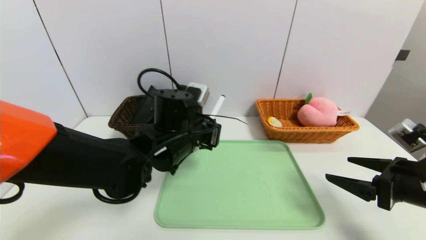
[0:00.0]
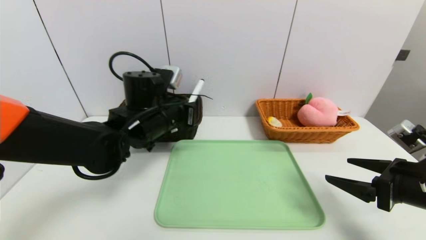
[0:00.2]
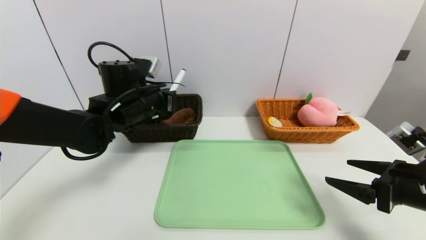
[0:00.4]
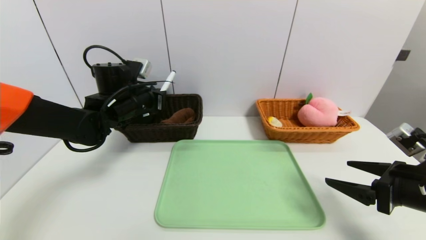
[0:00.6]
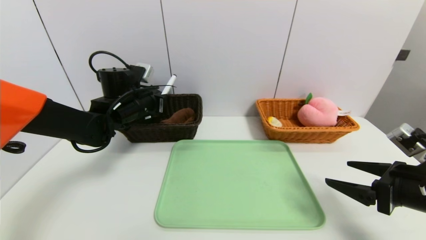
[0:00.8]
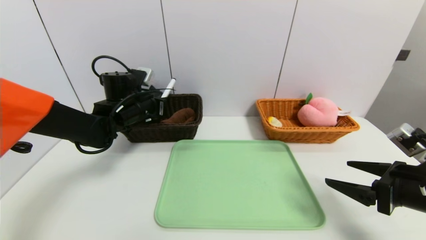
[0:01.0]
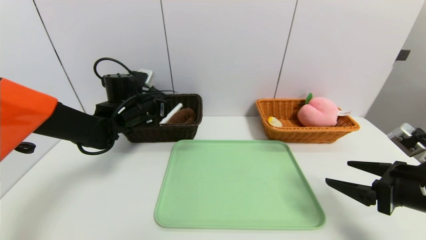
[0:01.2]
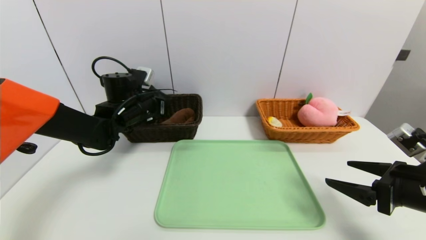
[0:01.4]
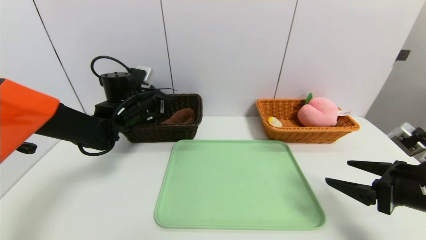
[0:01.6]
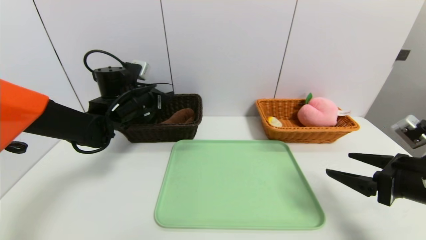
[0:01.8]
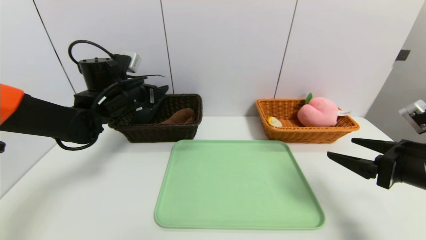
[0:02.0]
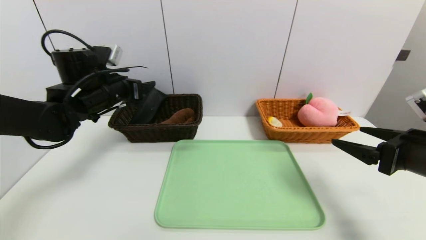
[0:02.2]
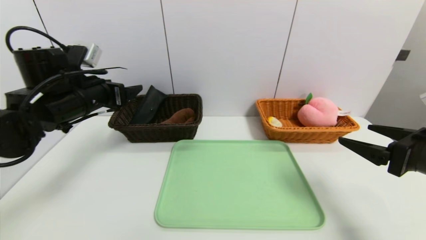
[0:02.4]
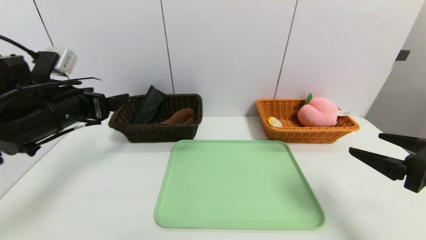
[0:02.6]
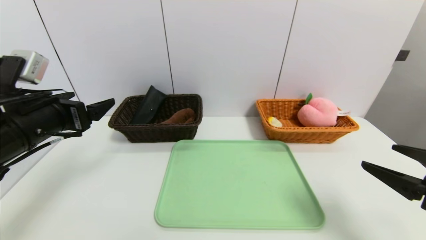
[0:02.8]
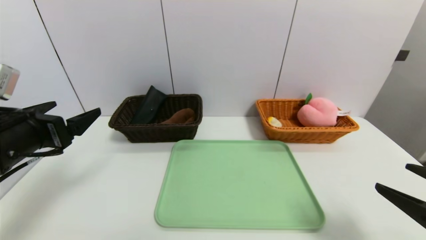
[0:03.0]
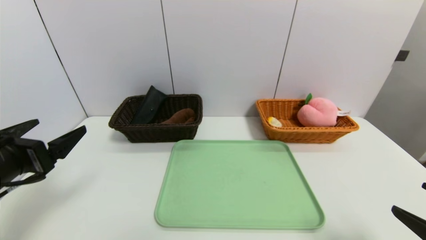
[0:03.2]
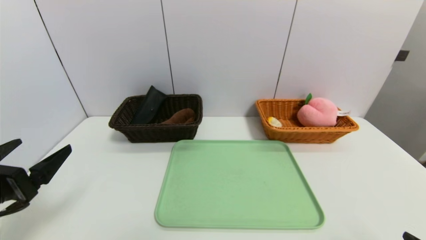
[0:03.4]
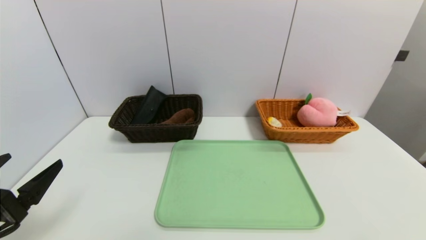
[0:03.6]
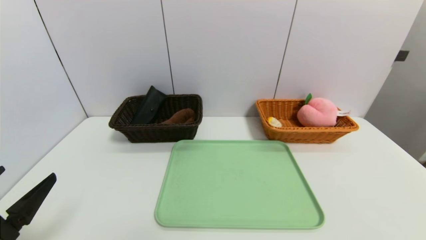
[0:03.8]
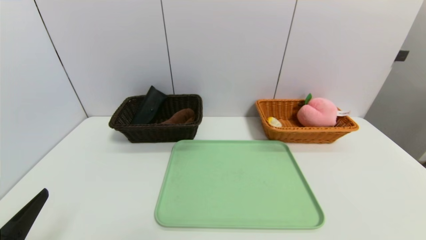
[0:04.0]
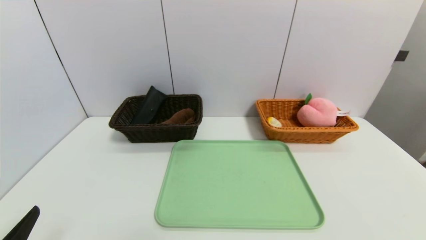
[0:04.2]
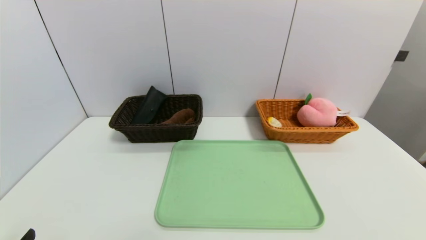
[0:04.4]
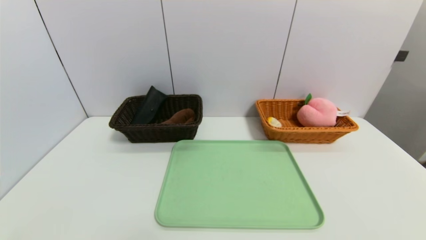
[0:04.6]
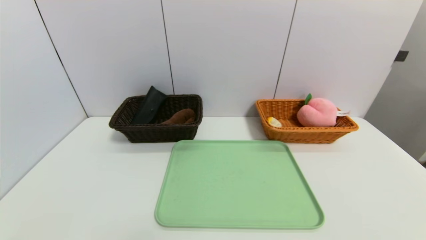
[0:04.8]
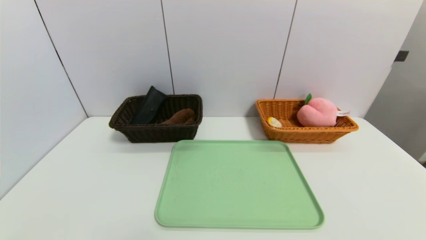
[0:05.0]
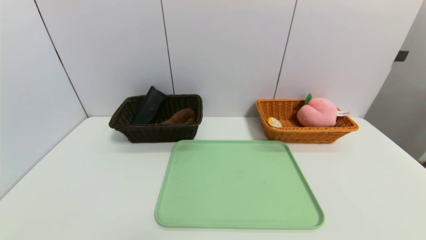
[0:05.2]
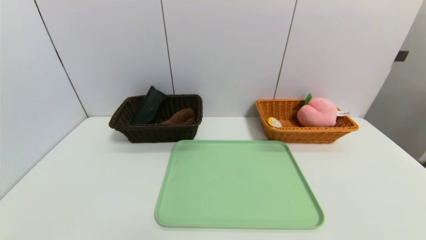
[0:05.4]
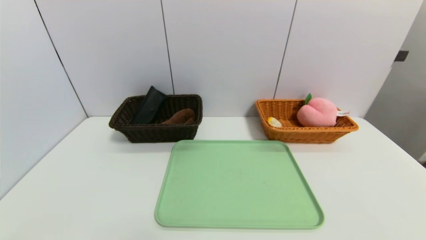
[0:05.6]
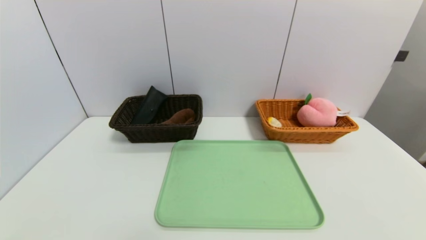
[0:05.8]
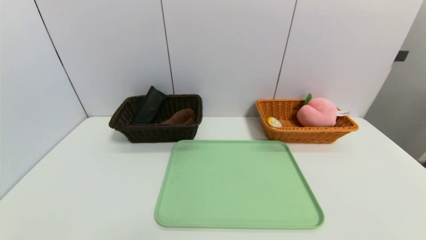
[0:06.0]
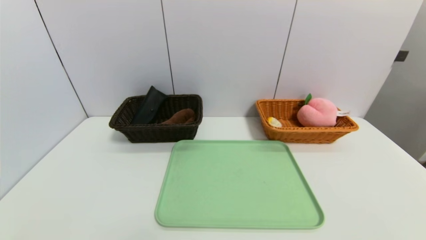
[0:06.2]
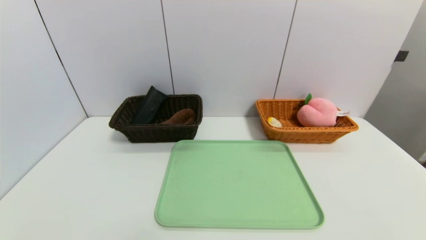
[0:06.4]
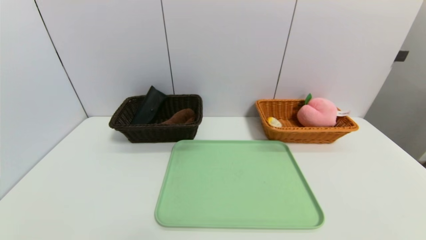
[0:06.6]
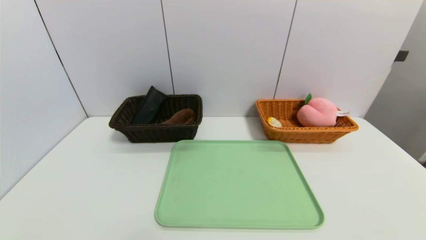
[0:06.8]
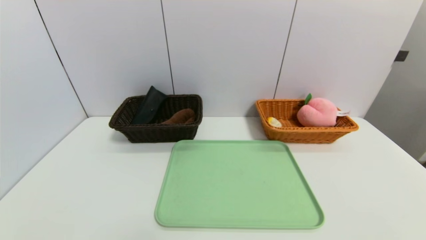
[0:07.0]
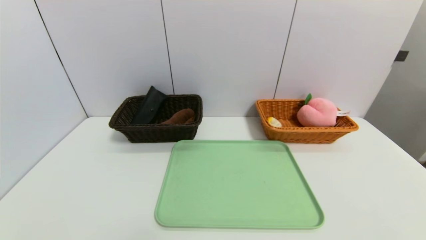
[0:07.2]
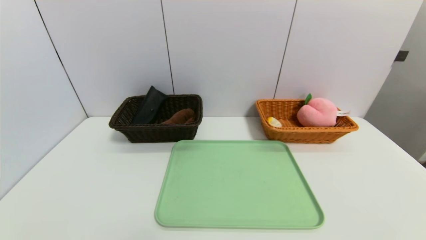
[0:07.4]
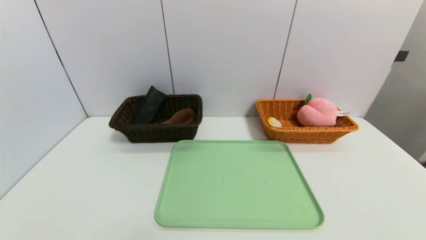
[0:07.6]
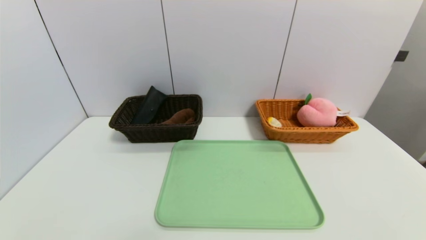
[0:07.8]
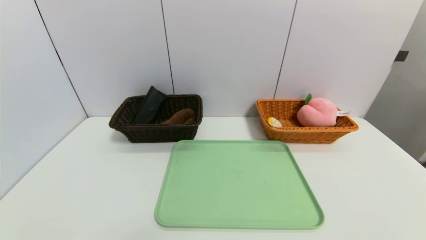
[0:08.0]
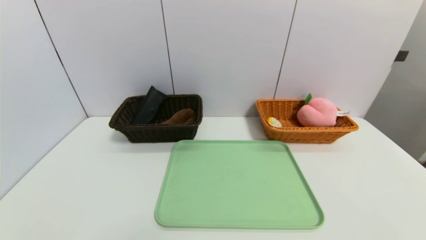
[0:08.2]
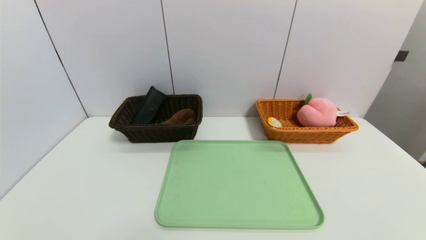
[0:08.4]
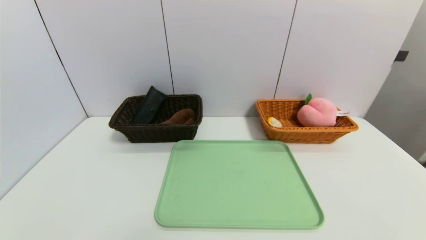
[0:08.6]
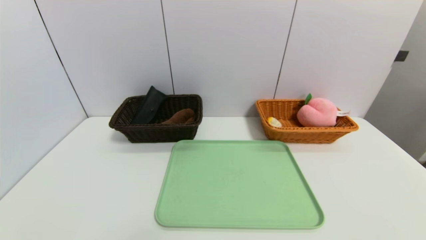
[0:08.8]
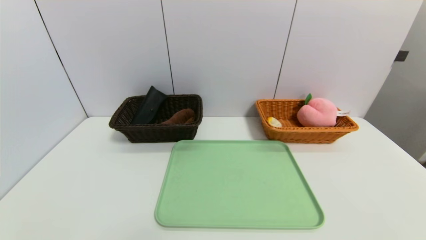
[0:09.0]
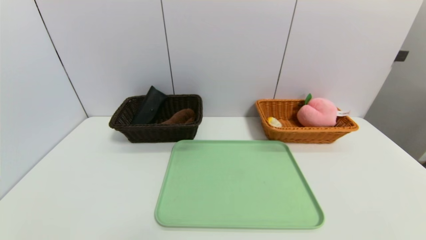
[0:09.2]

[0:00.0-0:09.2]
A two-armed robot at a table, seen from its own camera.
Task of the whole recording: place the food in the right basket with the right gripper, and place the non food items in the left basket with the left gripper.
0:00.0 to 0:01.6: The left gripper goes approximately 15 cm to the left and forward, and opens its fingers.
0:01.6 to 0:03.0: The right gripper heads backward, covering approximately 10 cm. Meanwhile the left gripper shifts approximately 20 cm backward.
0:03.0 to 0:04.6: The right gripper shifts roughly 15 cm backward and downward, while the left gripper shifts approximately 25 cm backward and downward.
0:07.6 to 0:09.2: Both grippers stay about where they are.

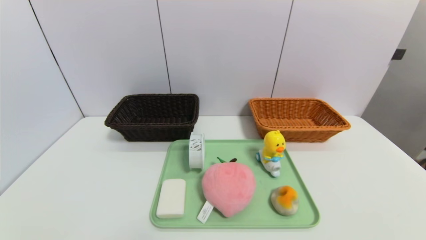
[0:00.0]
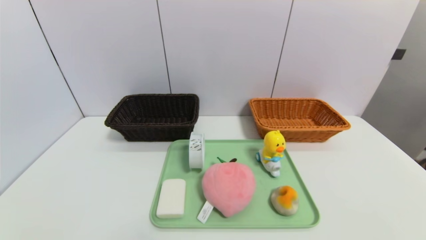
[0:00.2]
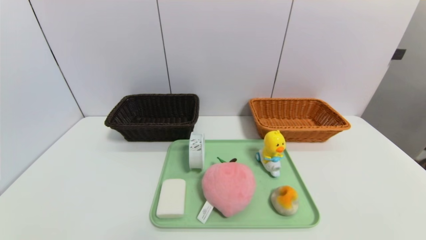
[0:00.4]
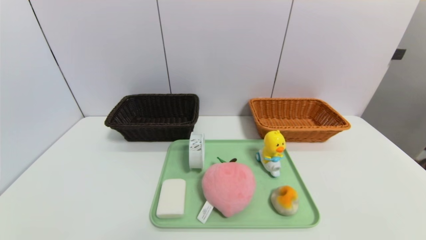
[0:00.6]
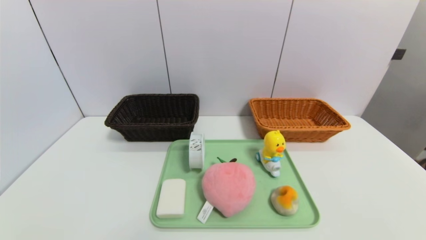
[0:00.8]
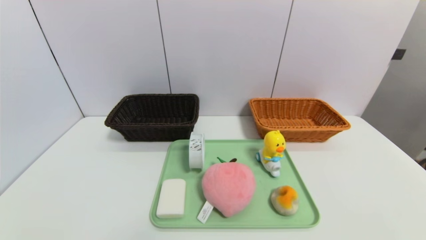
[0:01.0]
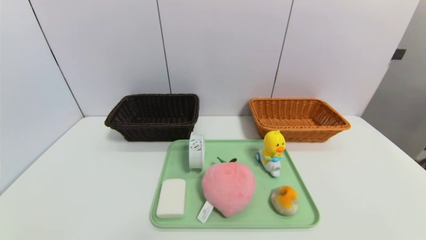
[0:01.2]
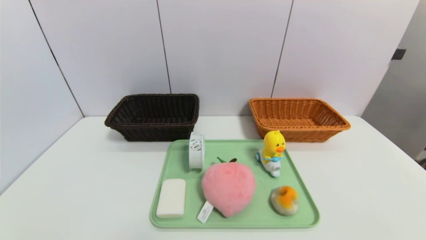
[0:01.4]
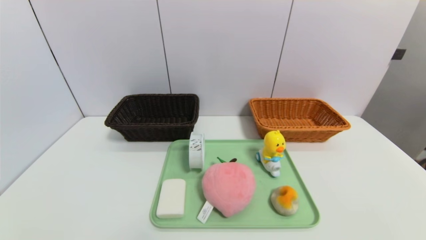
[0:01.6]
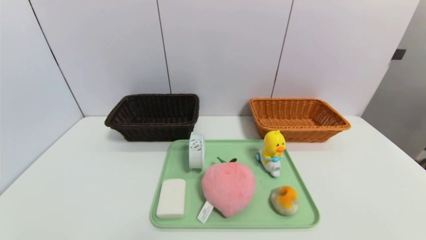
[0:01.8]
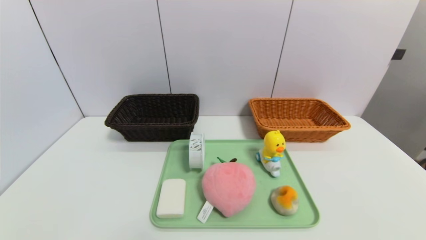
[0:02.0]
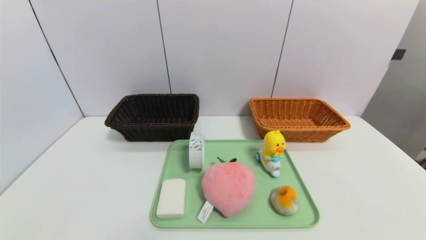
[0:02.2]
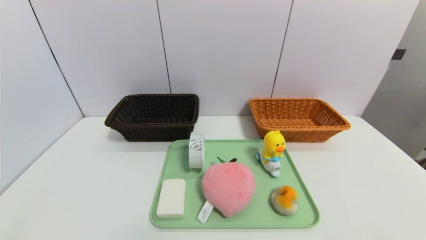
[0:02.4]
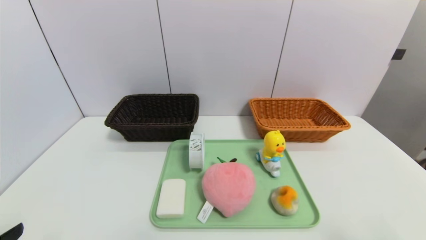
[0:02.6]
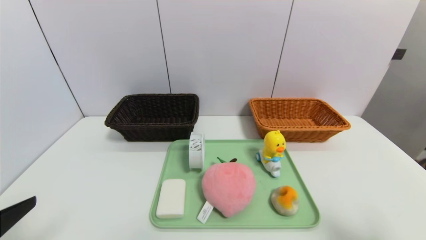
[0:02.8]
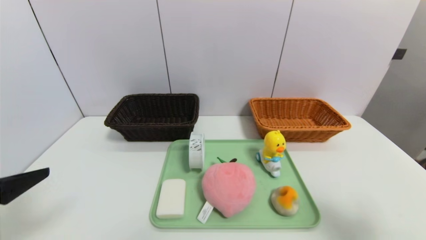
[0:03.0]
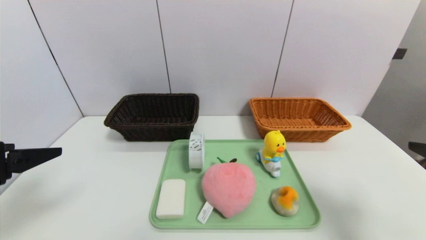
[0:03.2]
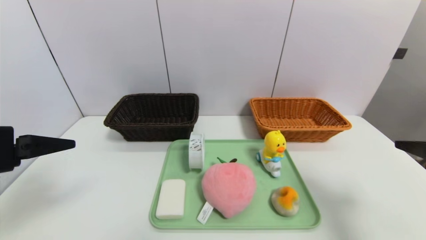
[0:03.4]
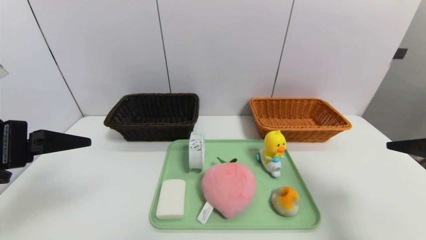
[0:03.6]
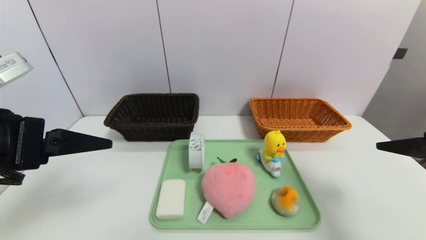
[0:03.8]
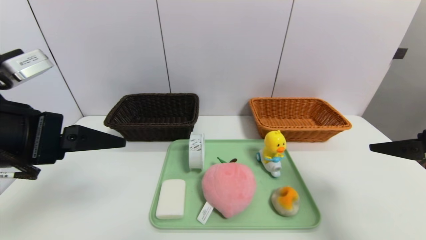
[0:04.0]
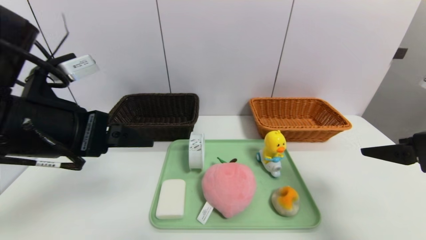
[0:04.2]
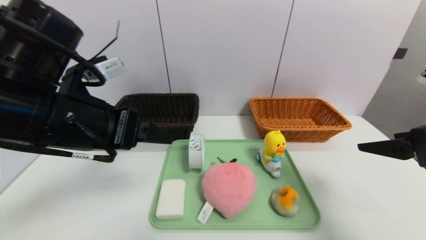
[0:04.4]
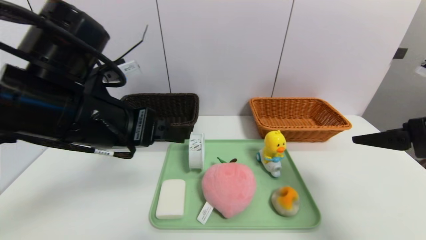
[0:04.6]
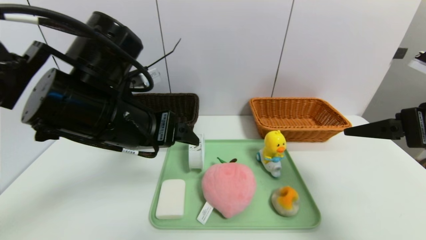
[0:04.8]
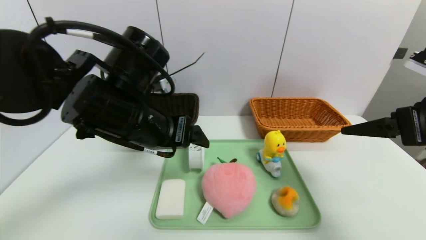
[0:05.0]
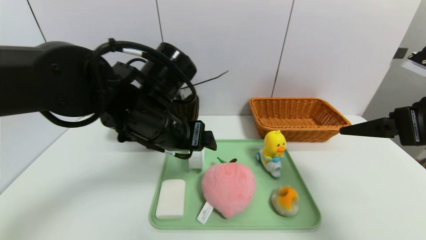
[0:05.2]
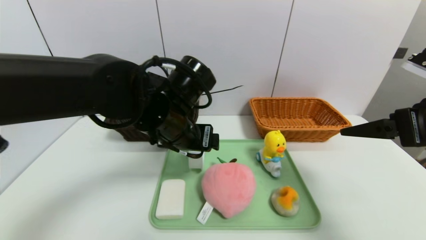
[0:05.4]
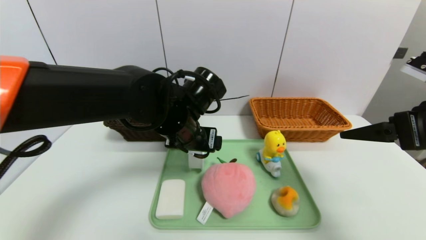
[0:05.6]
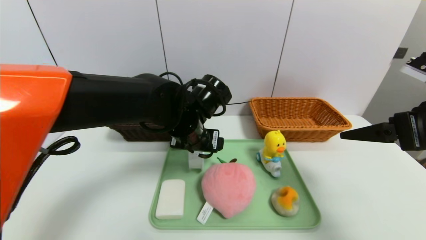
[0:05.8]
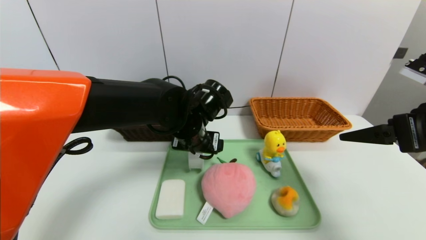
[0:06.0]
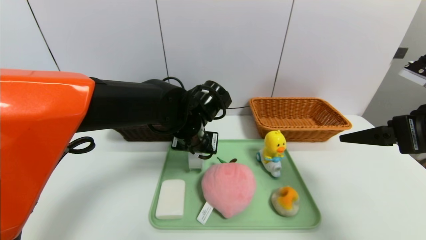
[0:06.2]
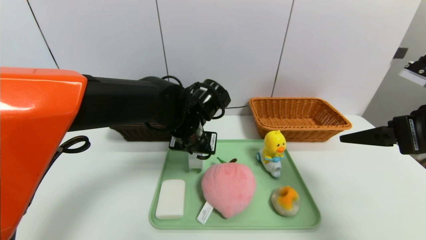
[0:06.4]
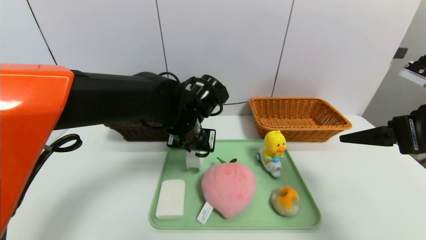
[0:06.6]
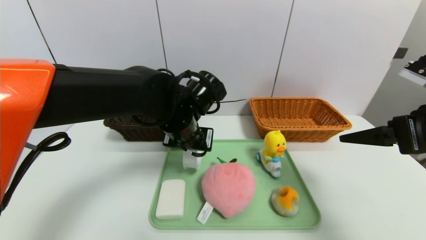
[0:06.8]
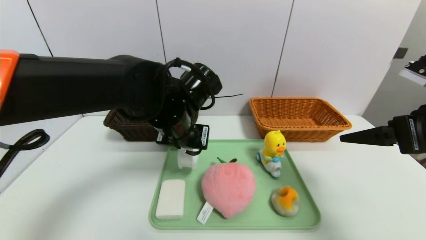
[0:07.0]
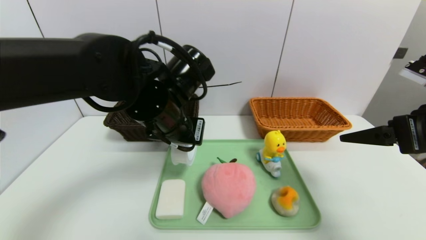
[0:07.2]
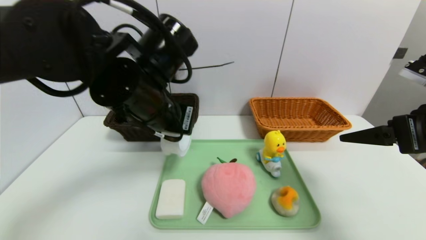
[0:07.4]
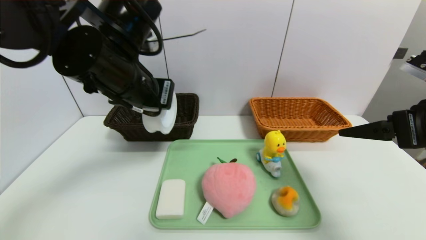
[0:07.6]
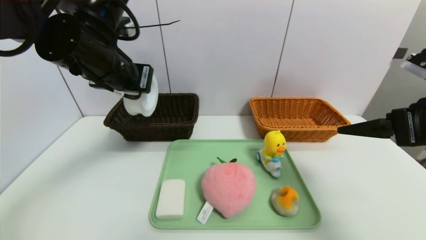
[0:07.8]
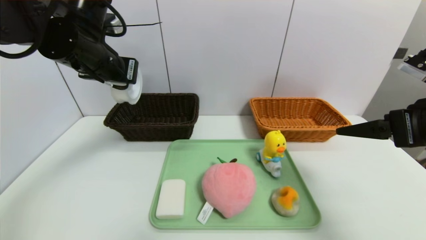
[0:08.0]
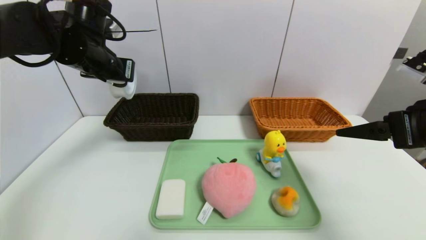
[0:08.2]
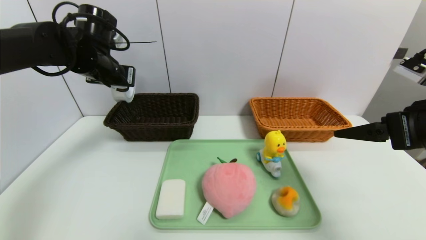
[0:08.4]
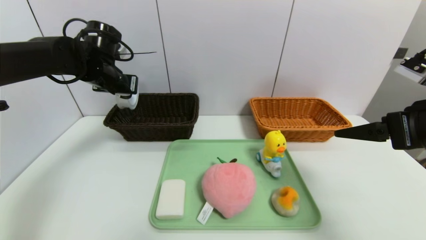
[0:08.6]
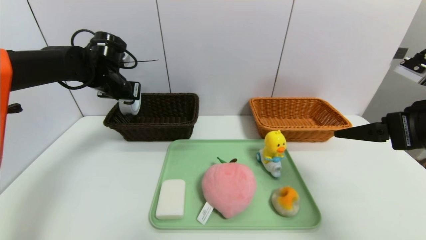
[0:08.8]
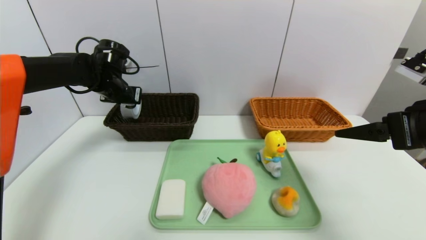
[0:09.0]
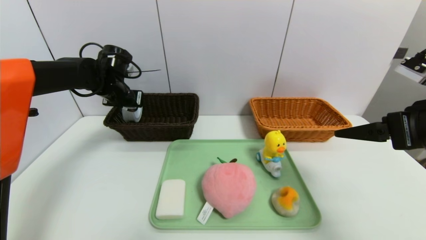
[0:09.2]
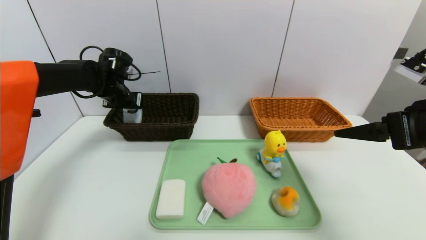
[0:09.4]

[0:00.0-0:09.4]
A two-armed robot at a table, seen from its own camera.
Task of the whole recording: place the food in the right basket with the right gripper, and place the non food items in the left basket with the left gripper.
0:00.0 to 0:01.6: Both grippers stay about where they are.
0:01.6 to 0:03.2: The two grippers go approximately 25 cm upward and forward.
0:03.2 to 0:04.8: The left gripper shifts approximately 20 cm to the right and forward. Meanwhile the right gripper shifts some 5 cm forward.
0:04.8 to 0:06.2: The left gripper moves forward, to the right and downward, about 15 cm, and closes its fingers.
0:06.2 to 0:07.8: The left gripper shifts some 20 cm upward and to the left, and closes.
0:07.8 to 0:09.4: The left gripper goes some 20 cm forward, downward and to the left.
